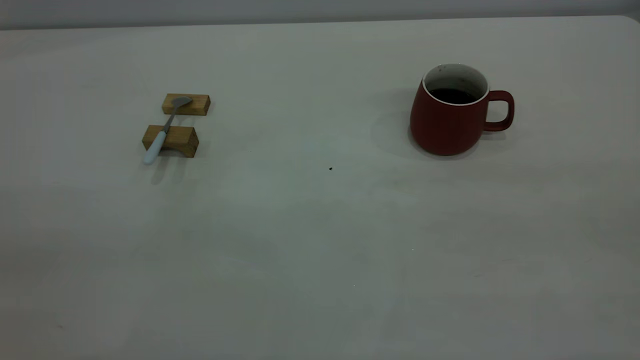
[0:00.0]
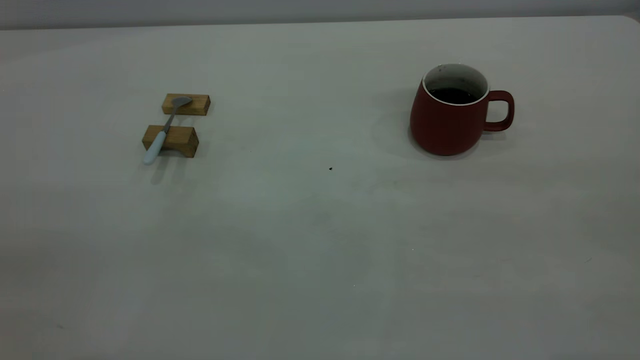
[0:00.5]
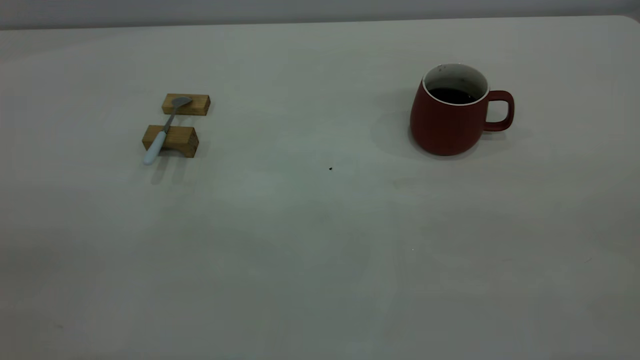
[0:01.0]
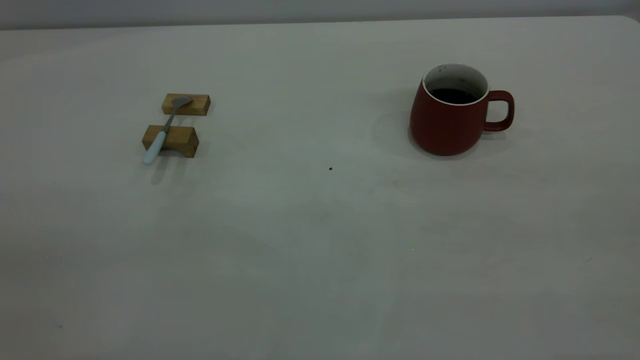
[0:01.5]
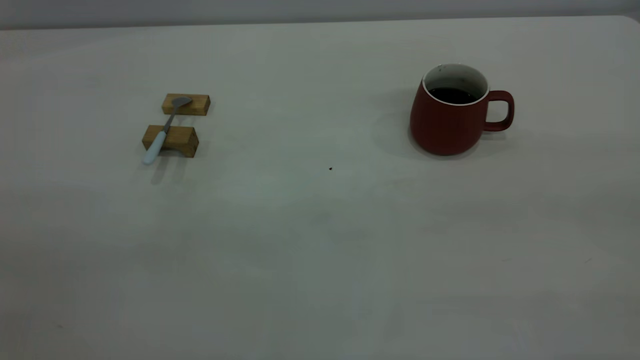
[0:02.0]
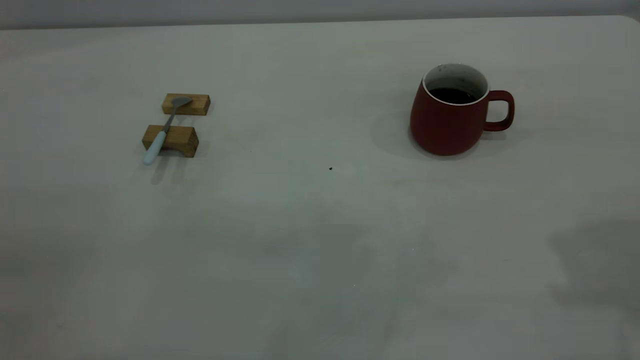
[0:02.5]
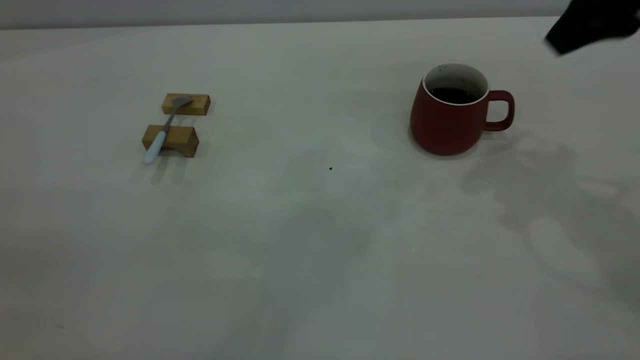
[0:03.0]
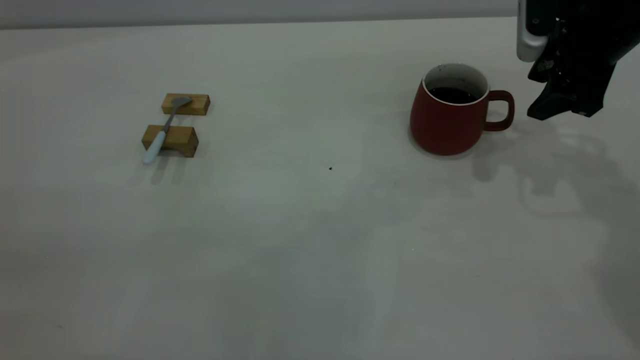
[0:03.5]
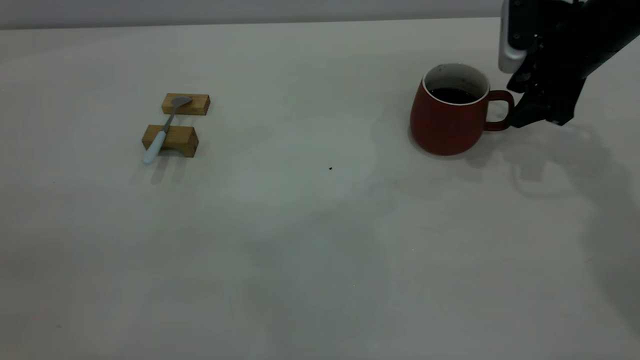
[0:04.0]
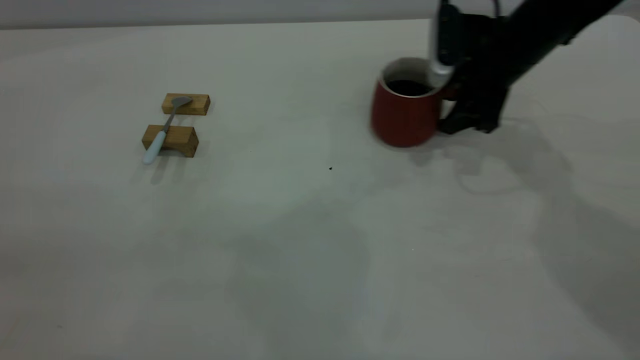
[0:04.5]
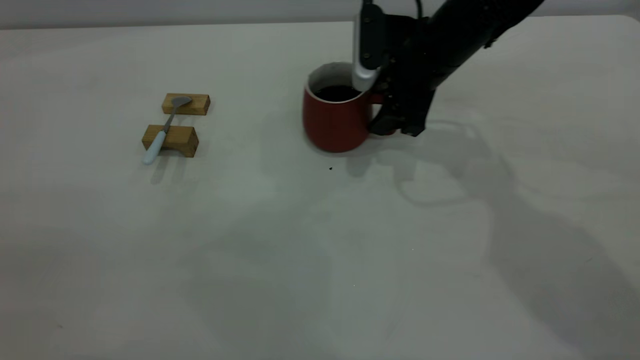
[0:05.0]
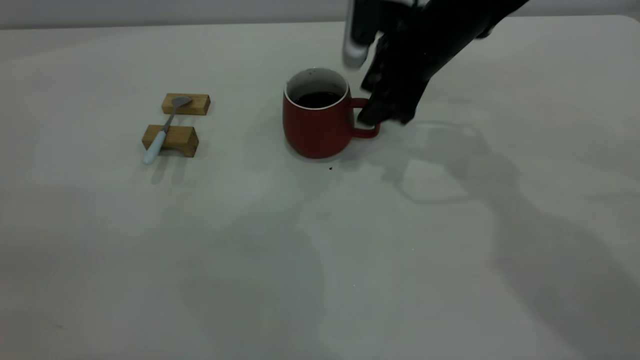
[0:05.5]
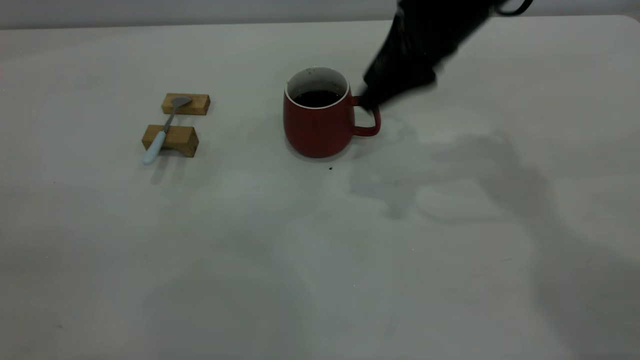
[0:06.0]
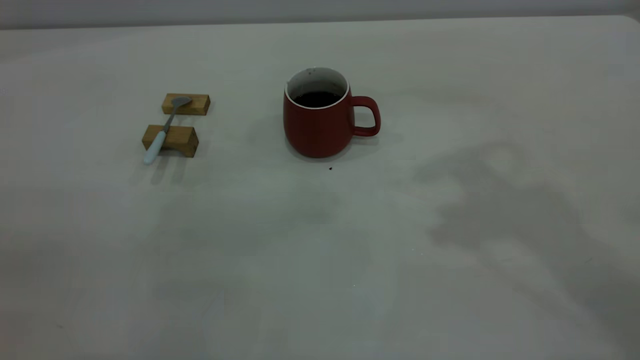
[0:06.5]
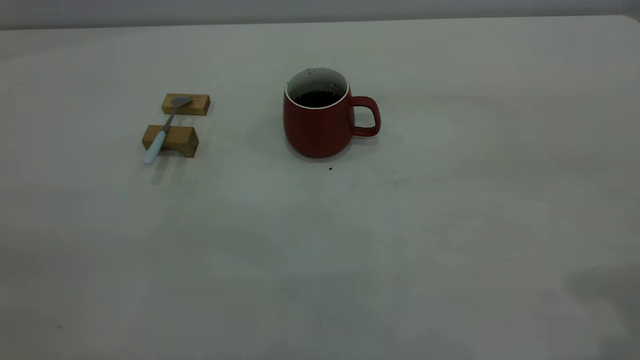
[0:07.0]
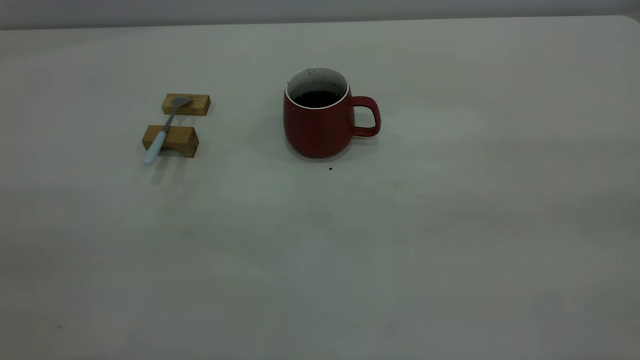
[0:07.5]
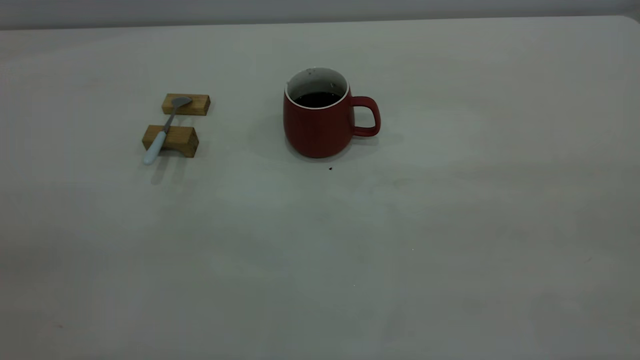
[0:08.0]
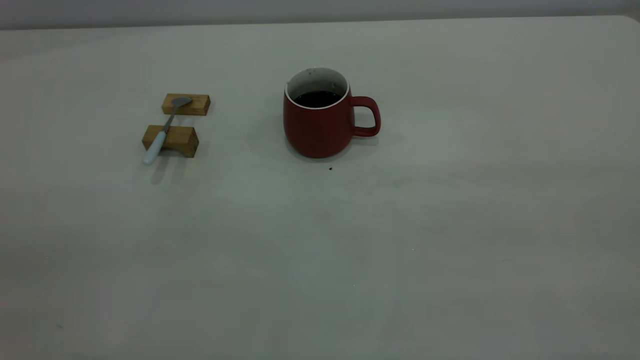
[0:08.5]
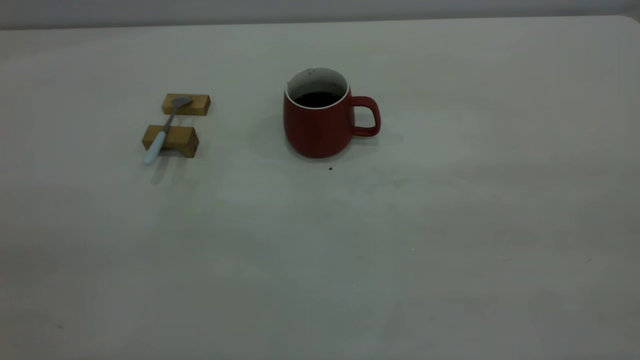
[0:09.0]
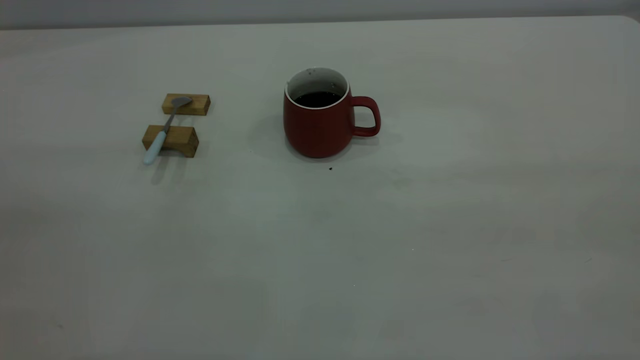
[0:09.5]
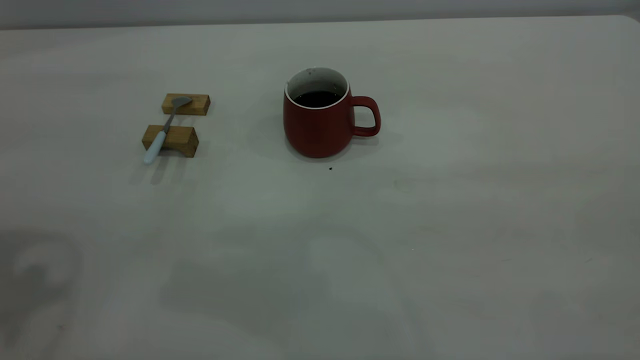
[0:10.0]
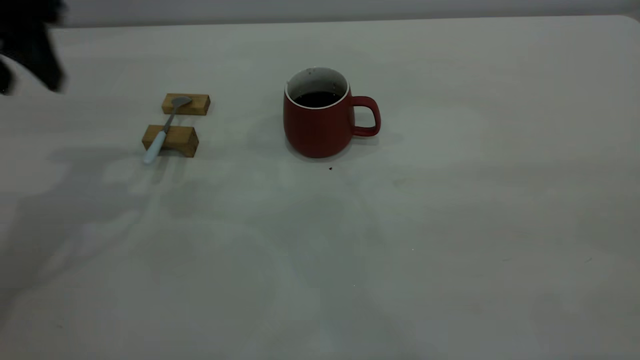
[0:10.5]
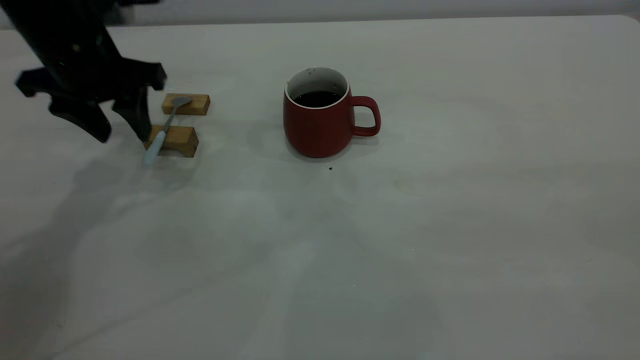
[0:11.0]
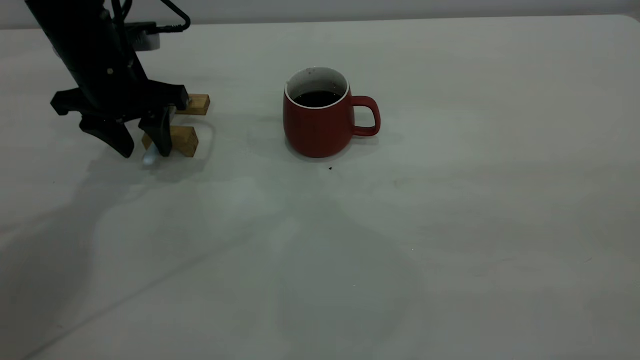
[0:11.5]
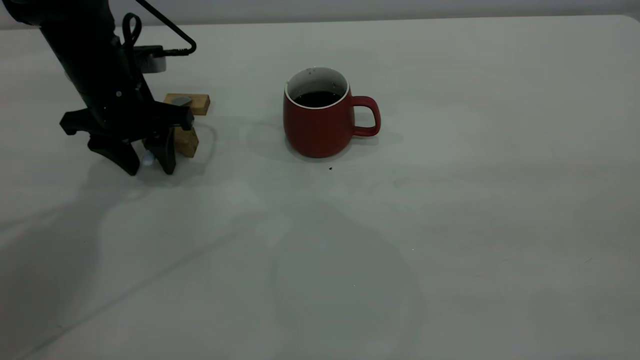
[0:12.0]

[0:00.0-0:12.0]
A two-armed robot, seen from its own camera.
Step, 0:00.0 to 0:06.0: Move the cup with coffee to the center of view.
0:02.0 to 0:04.0: The right gripper goes roughly 50 cm forward and downward, and opens.
0:04.0 to 0:06.0: The right gripper heads to the left and upward, covering approximately 15 cm.
0:06.0 to 0:08.0: The right gripper travels backward and to the right by approximately 40 cm.
0:10.0 to 0:12.0: The left gripper heads downward and forward, covering roughly 30 cm.

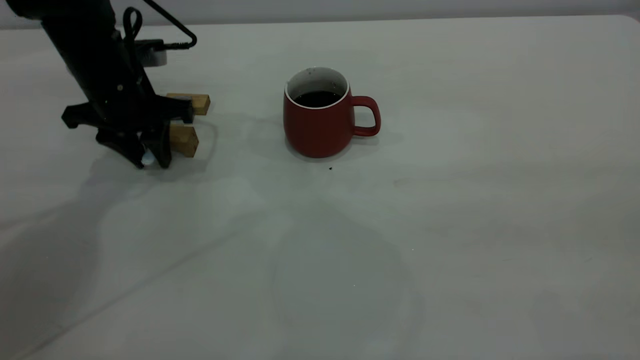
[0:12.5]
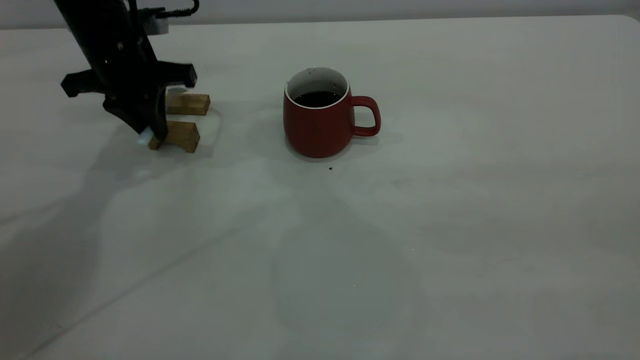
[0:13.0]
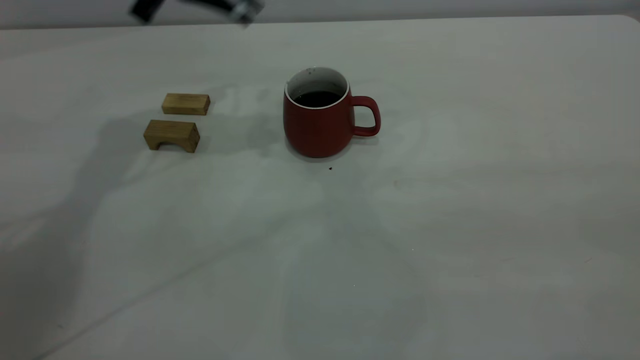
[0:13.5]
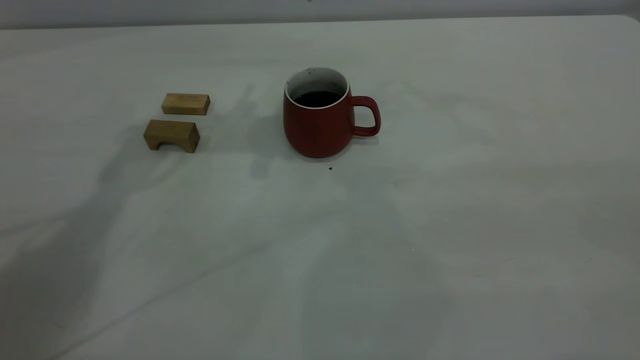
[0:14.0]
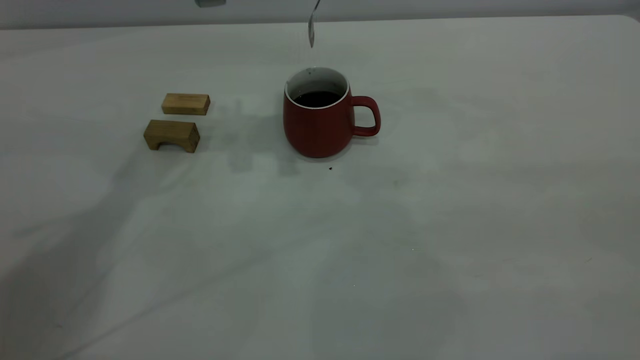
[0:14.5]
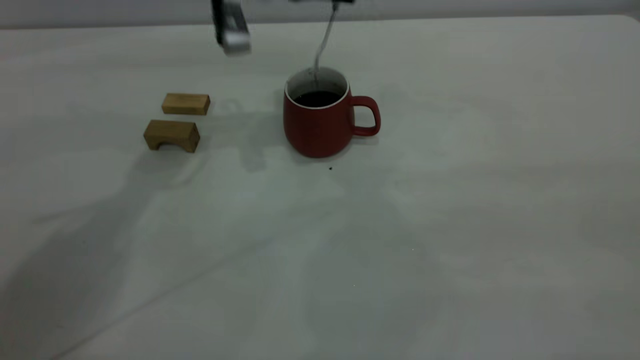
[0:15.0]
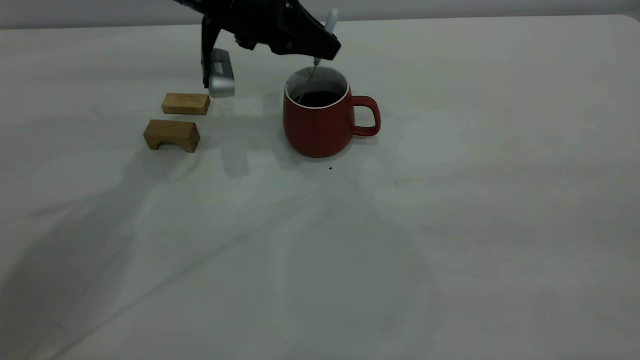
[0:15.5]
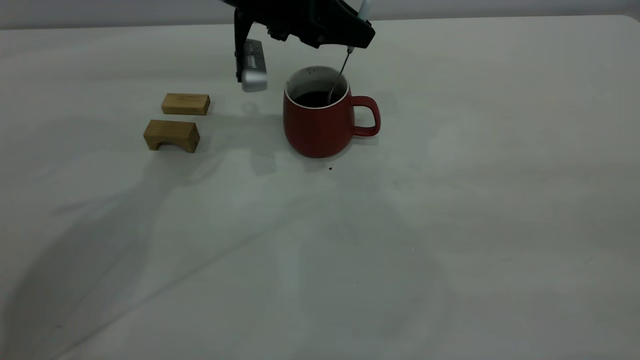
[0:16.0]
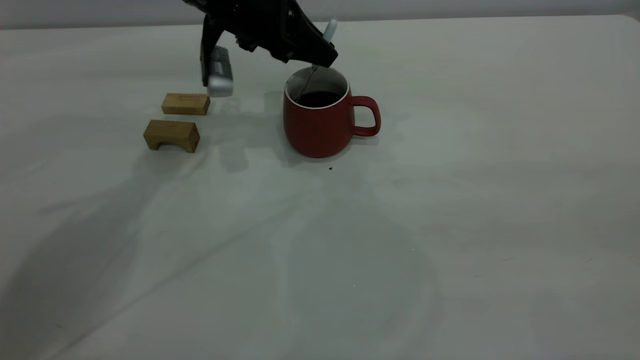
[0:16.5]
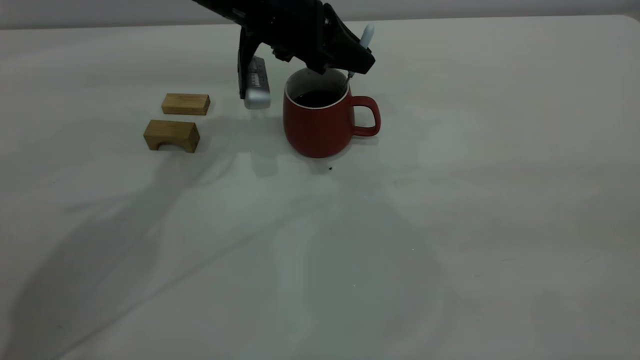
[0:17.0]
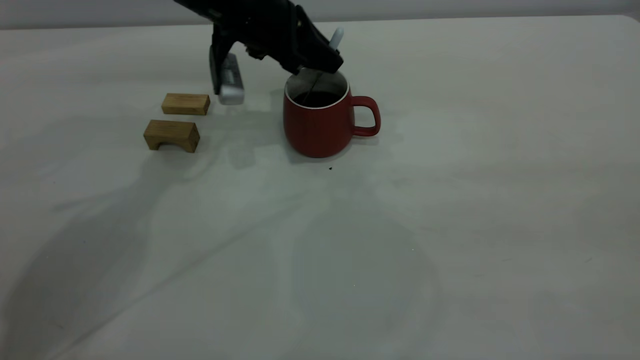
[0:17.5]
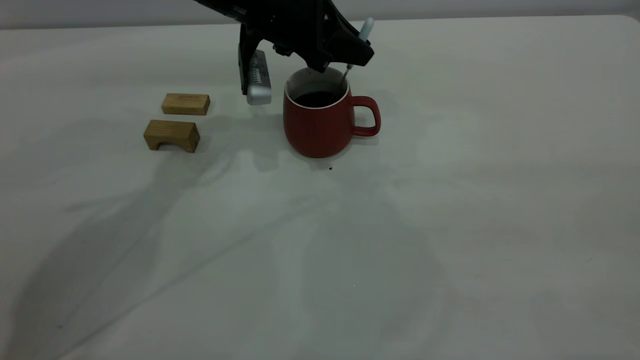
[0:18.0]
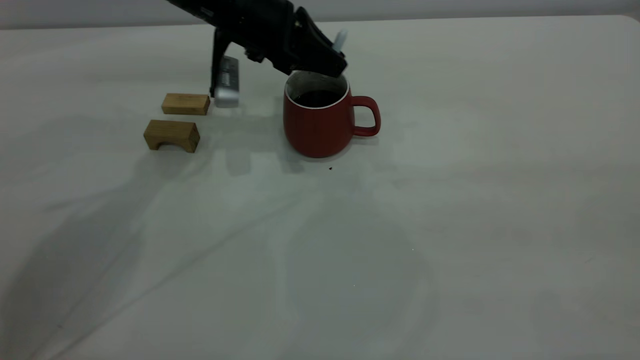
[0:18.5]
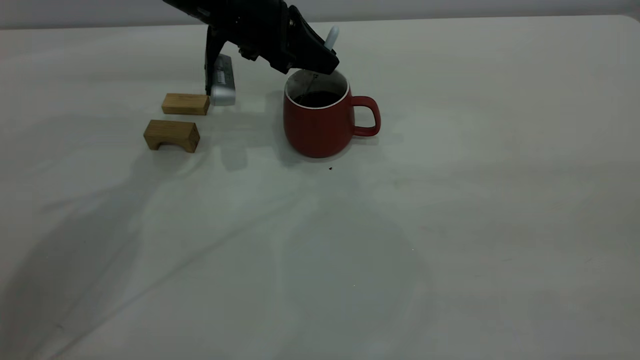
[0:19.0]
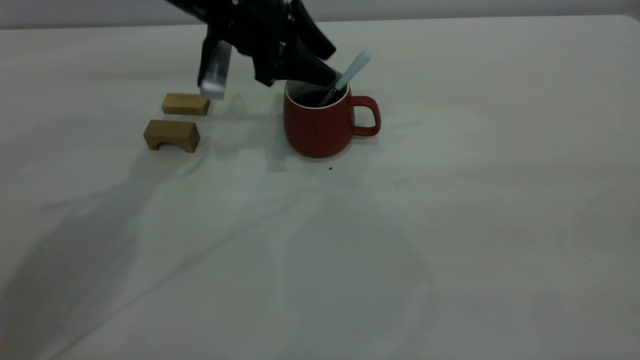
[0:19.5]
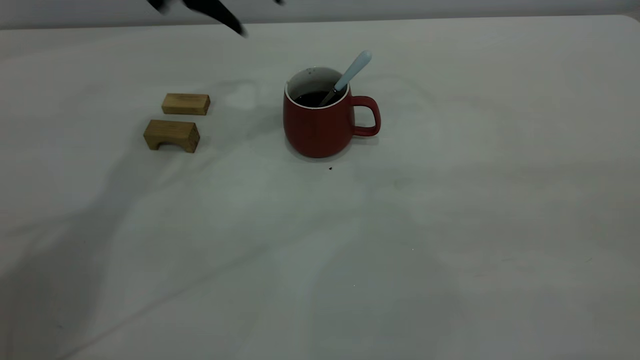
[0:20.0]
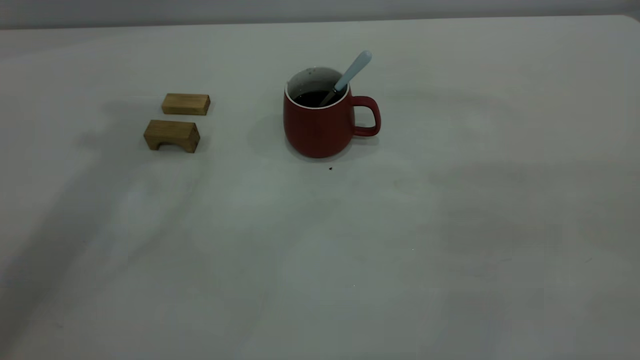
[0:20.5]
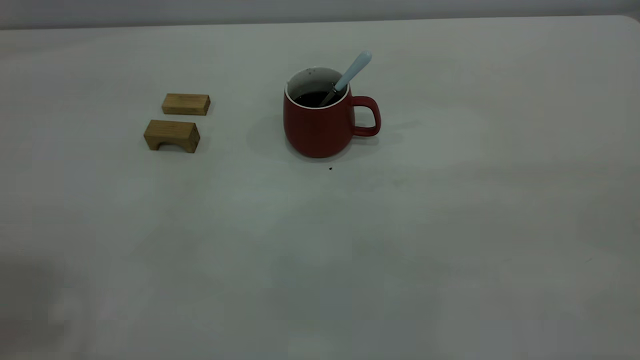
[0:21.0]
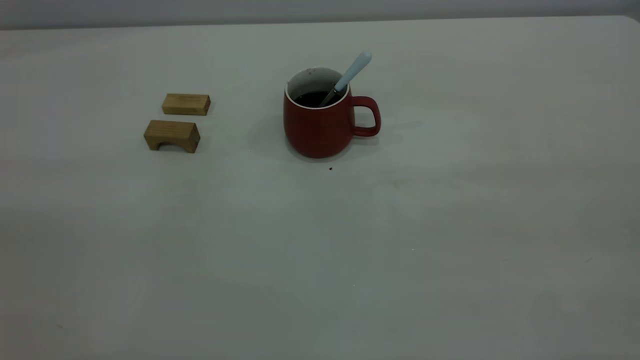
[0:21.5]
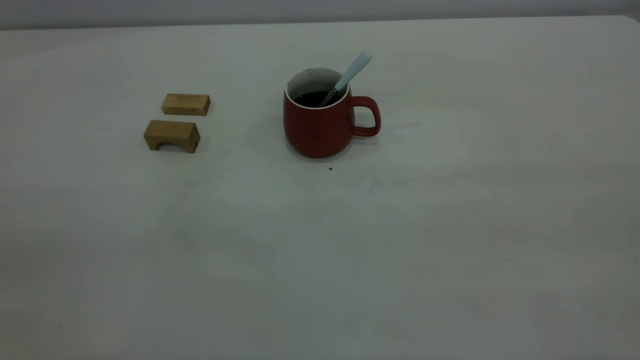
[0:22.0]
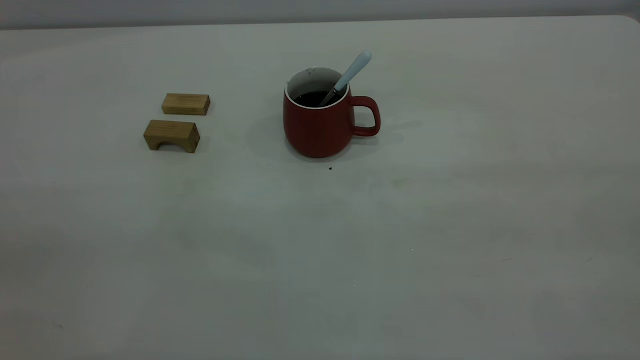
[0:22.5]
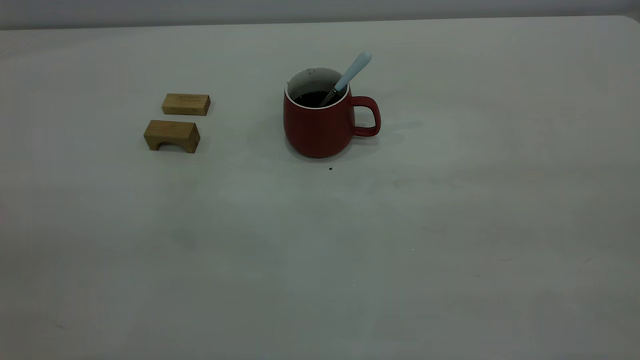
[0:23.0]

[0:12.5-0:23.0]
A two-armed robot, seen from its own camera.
Step, 0:13.5 to 0:19.5: Stir the coffee in the cup.
0:12.5 to 0:14.5: The left gripper travels upward and to the right by about 20 cm, and closes.
0:14.5 to 0:16.5: The left gripper moves downward, some 10 cm.
0:16.5 to 0:19.0: The grippers make only small movements.
0:19.0 to 0:21.0: The left gripper travels upward, backward and to the left by about 50 cm, and opens.
